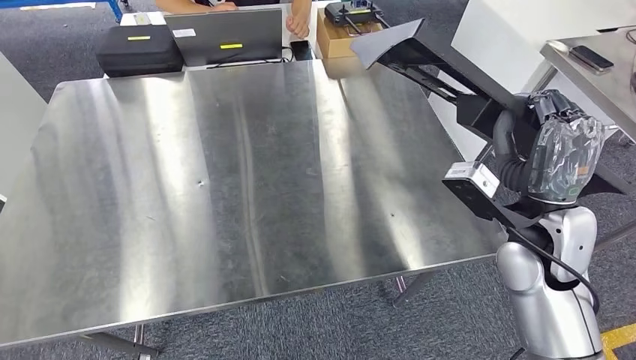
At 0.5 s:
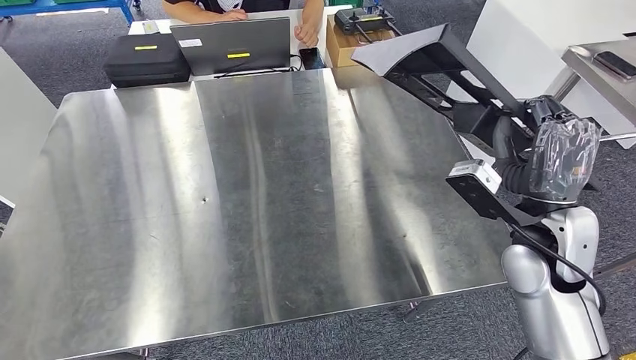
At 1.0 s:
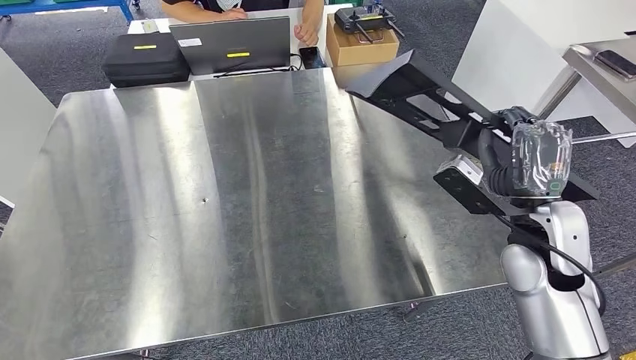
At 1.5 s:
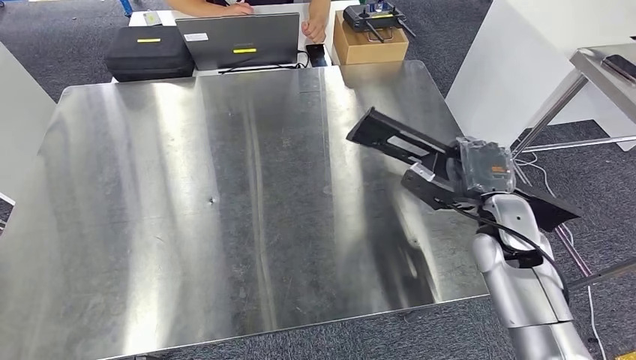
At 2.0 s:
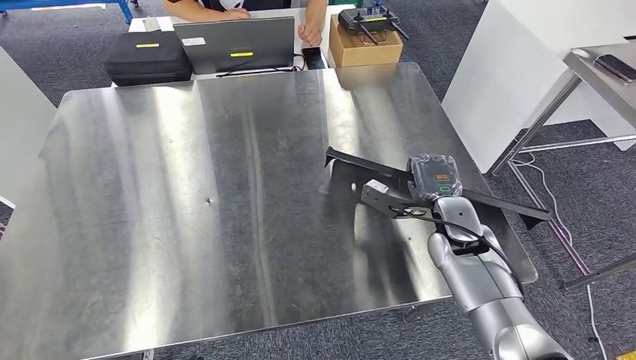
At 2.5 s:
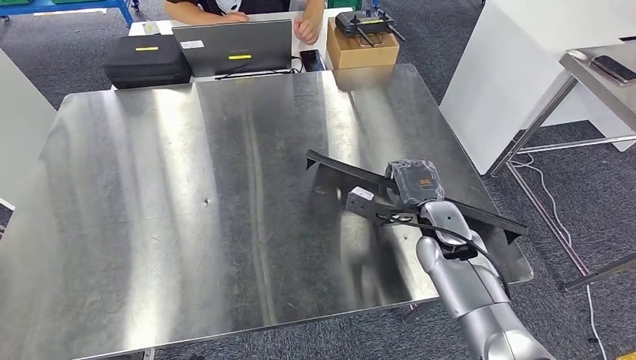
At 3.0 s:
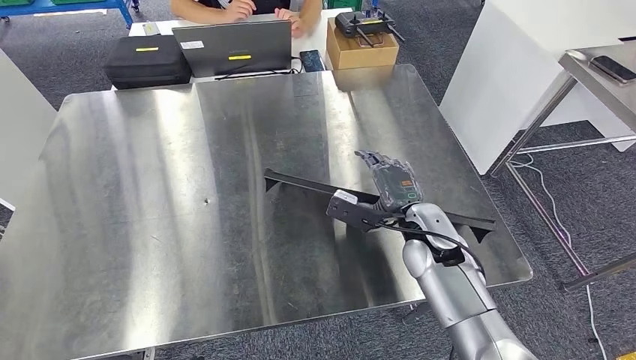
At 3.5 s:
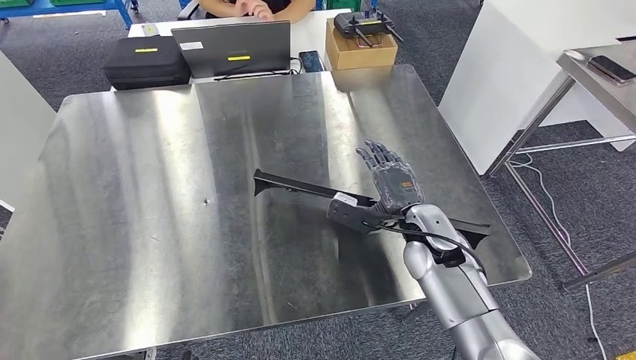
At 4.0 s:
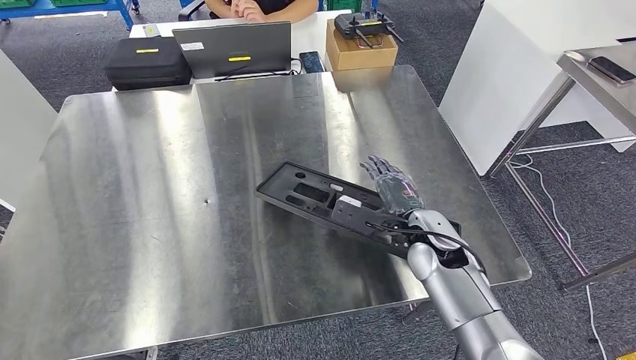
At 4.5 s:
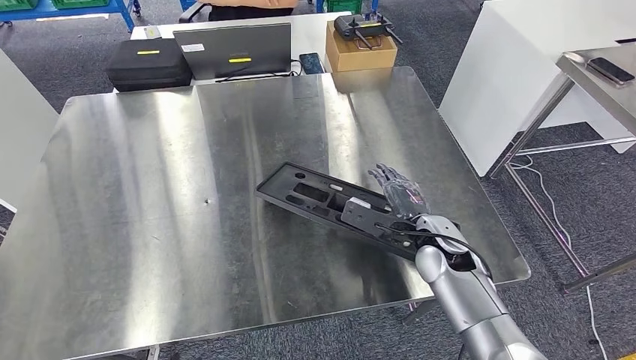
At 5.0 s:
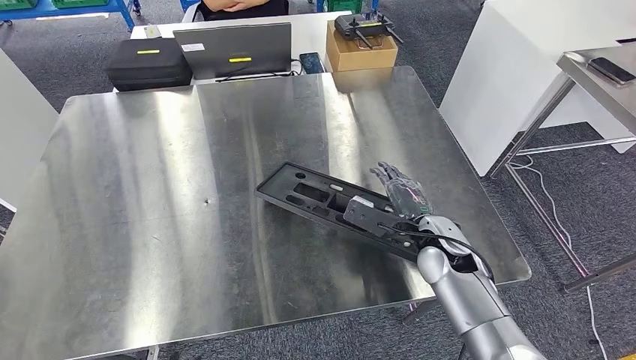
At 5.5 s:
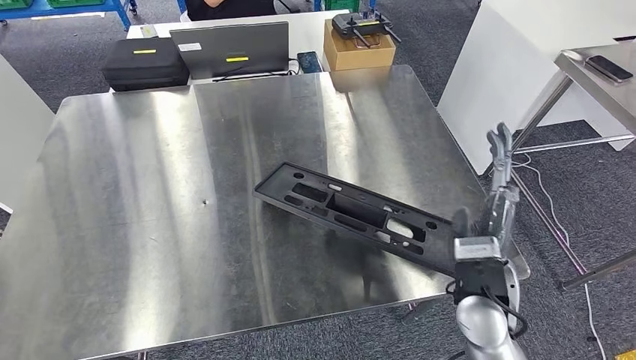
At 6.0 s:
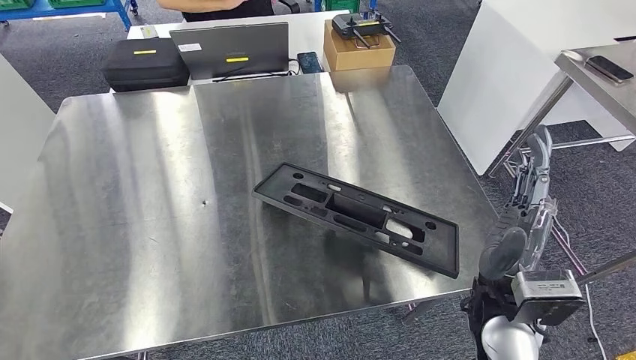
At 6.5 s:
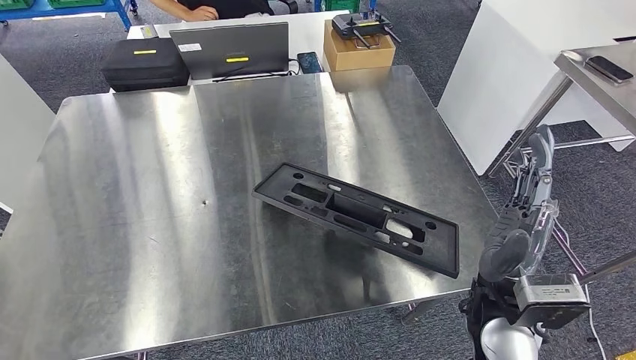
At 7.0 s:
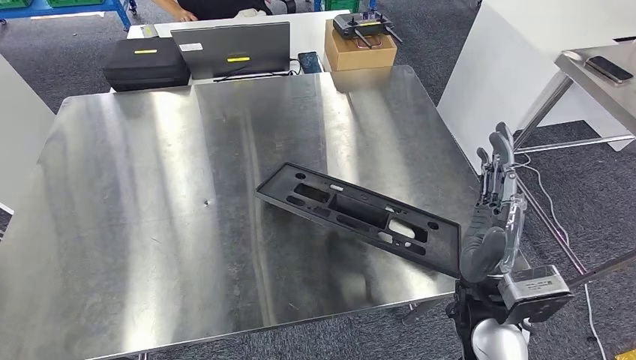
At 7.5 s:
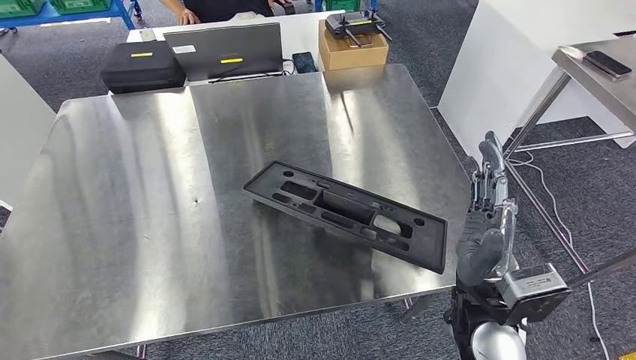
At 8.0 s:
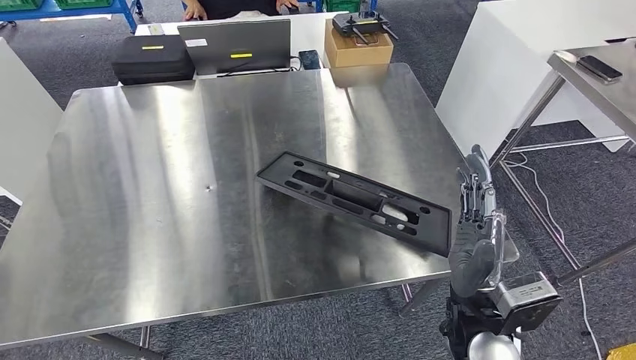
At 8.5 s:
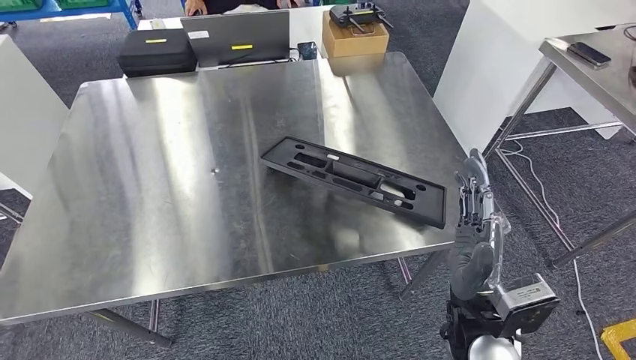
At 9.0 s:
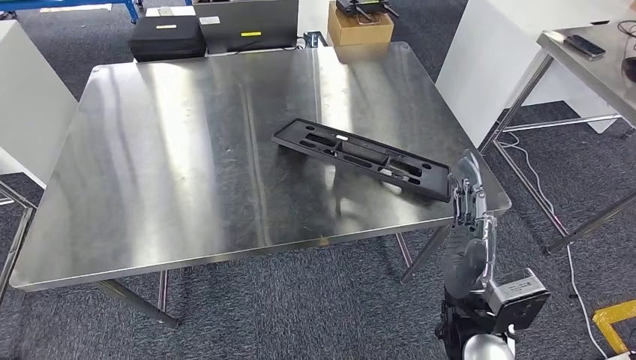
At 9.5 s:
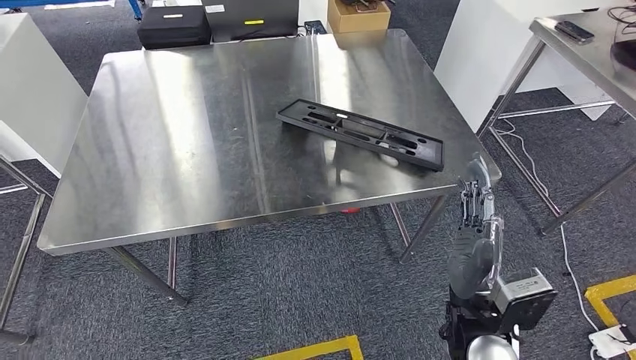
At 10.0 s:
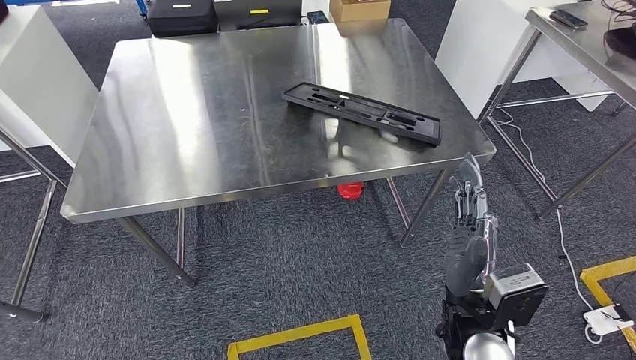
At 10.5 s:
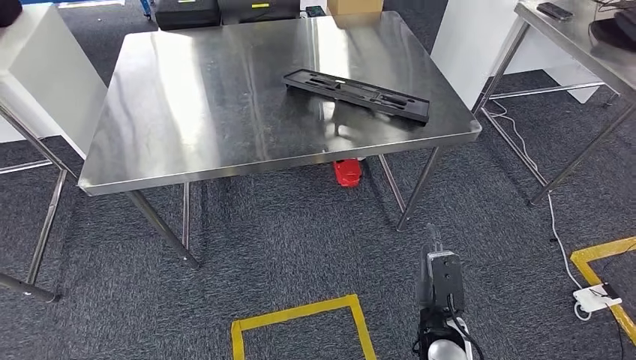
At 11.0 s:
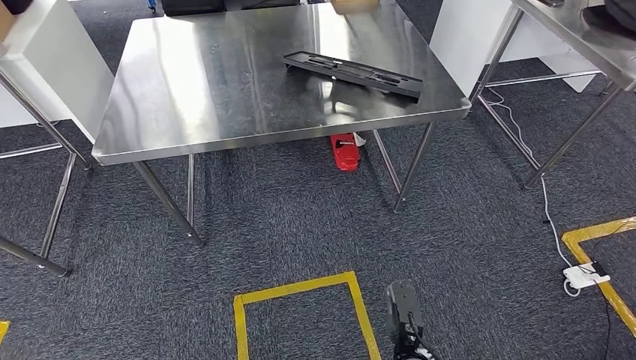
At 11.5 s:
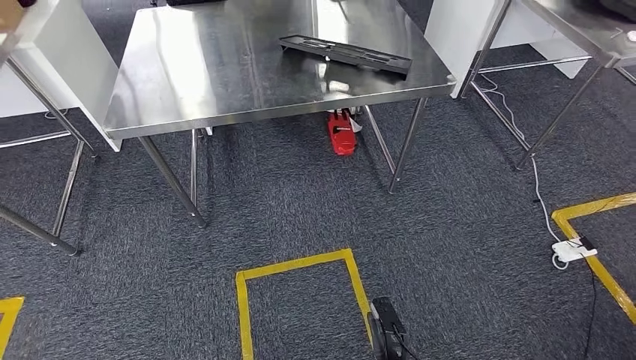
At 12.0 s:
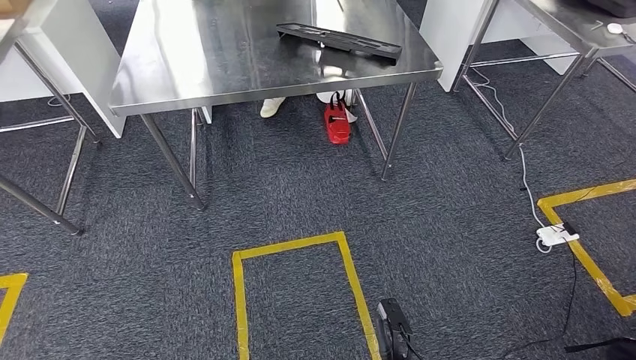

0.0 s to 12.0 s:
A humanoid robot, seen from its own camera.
Step, 0.0 to 7.0 s: Insert the large material into the corresponding slot on the workbench.
4.0 to 6.0 s: The right hand is displaced backward and upward by roughly 15 cm.

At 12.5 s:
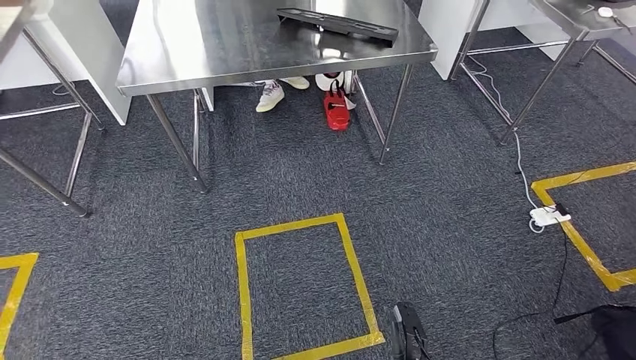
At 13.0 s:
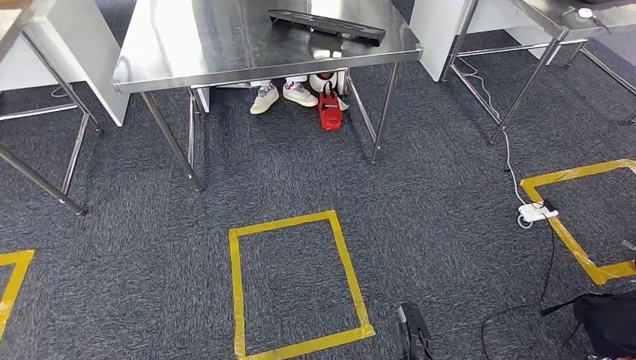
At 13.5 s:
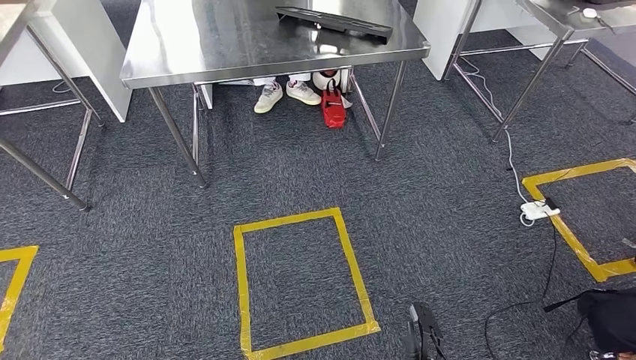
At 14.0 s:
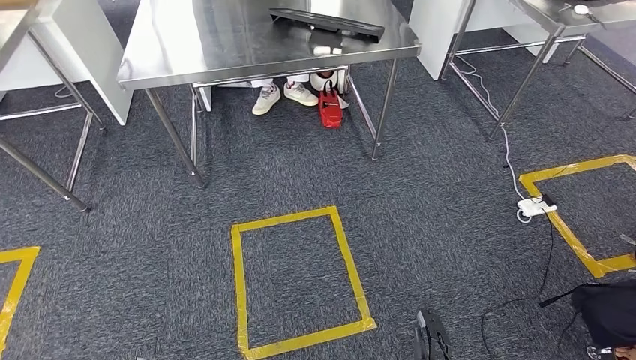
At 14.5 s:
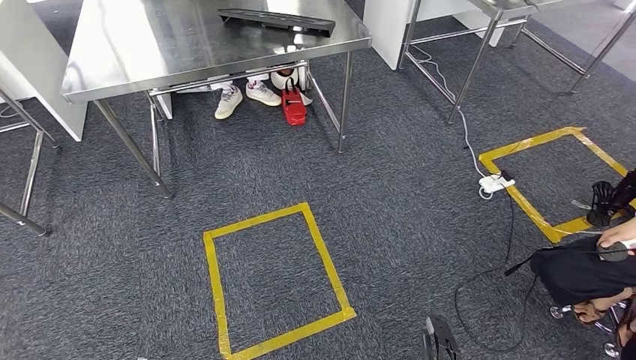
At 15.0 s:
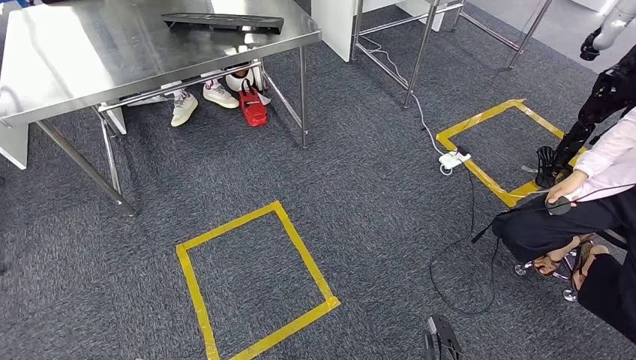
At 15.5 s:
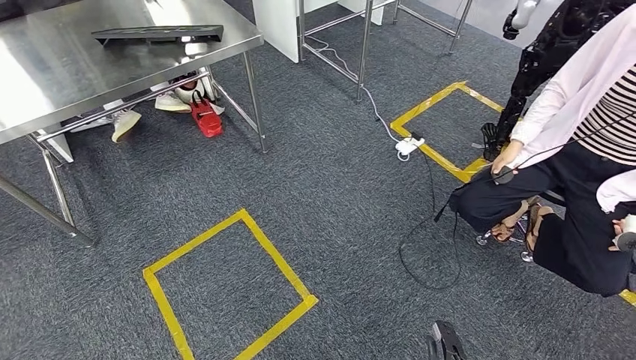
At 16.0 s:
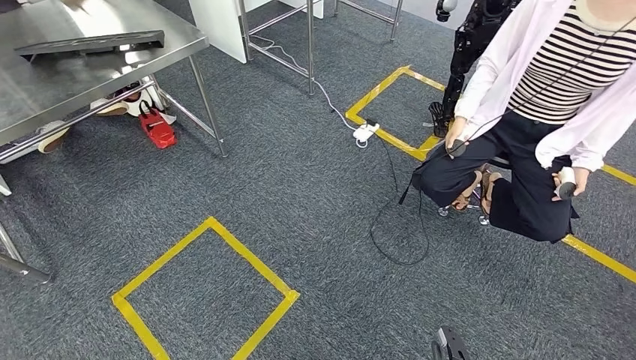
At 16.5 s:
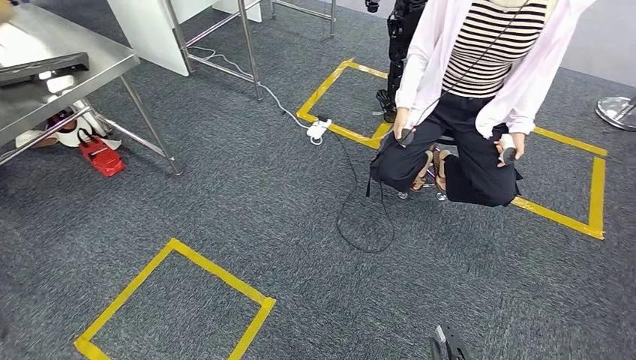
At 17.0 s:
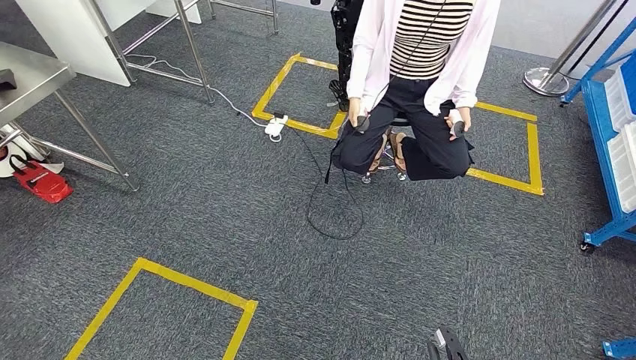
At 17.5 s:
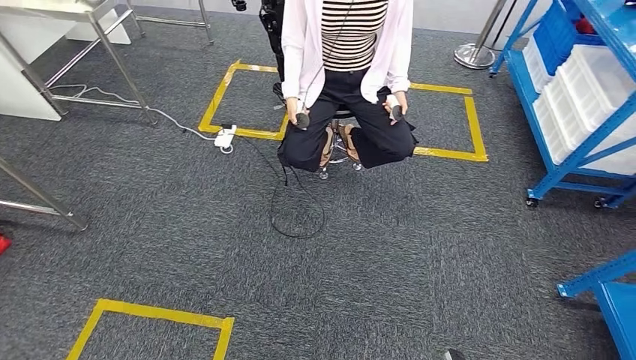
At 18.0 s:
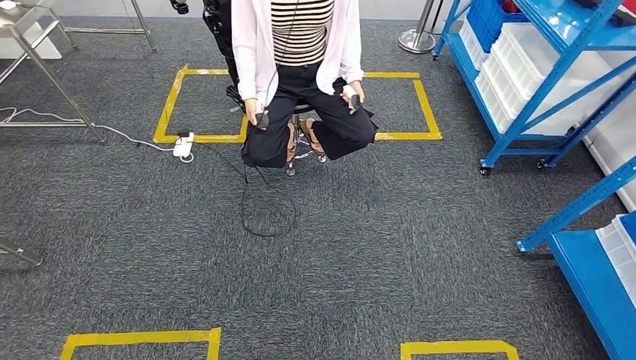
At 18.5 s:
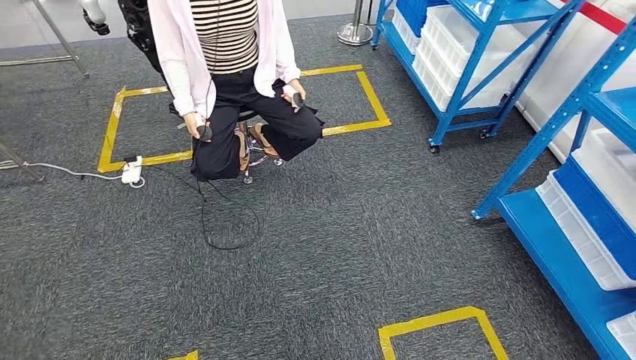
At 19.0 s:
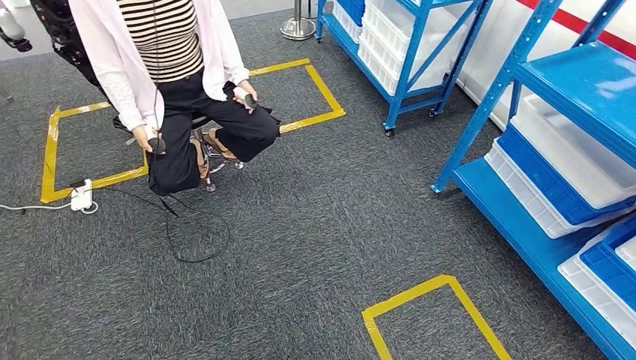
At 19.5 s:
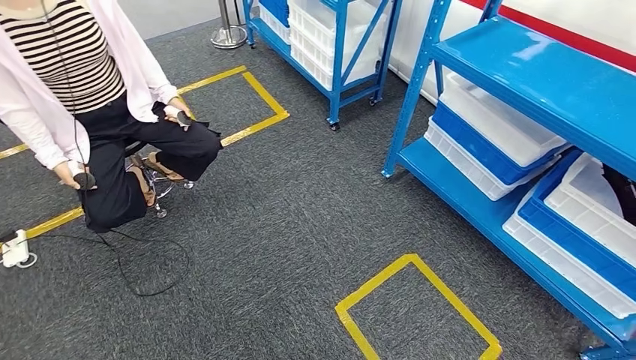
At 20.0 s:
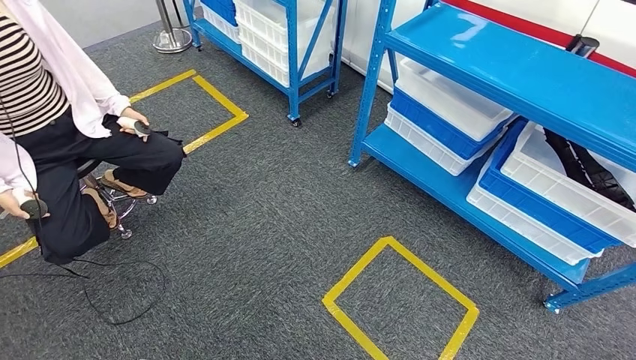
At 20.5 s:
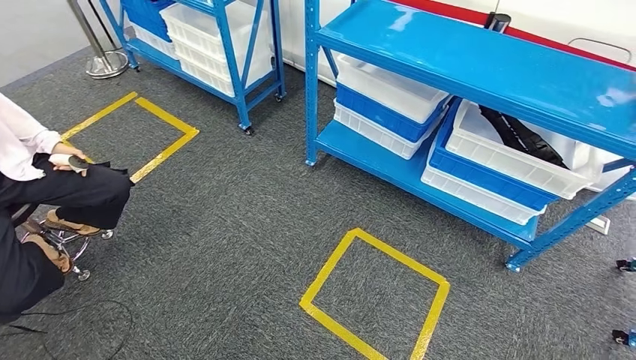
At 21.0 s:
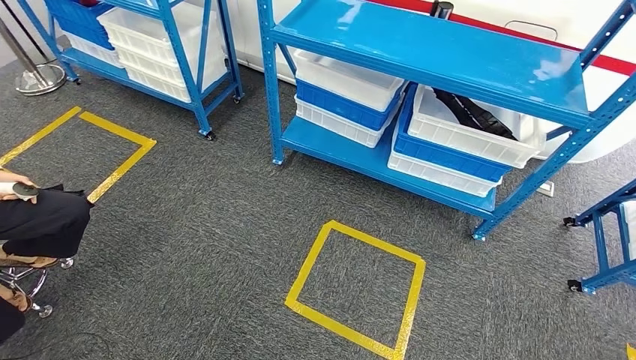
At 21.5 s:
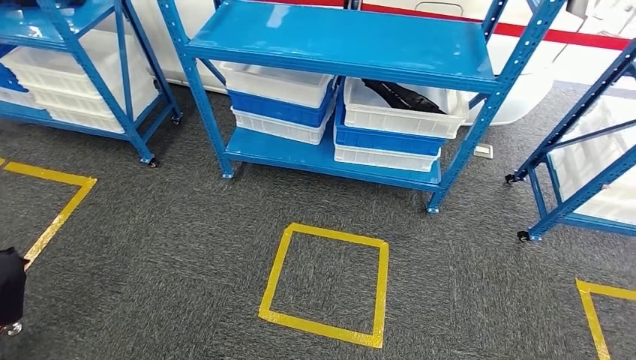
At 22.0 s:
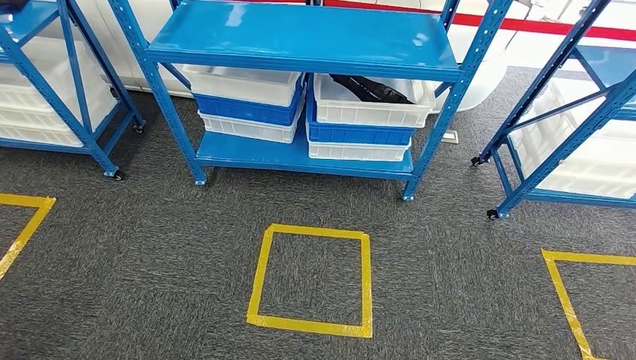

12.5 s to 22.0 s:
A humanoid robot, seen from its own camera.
Step, 12.5 to 22.0 s: Move to the initial position of the shelf.
